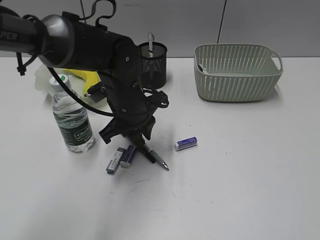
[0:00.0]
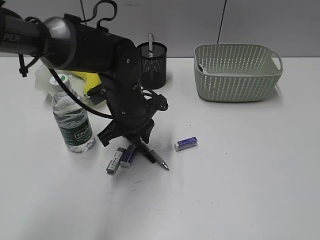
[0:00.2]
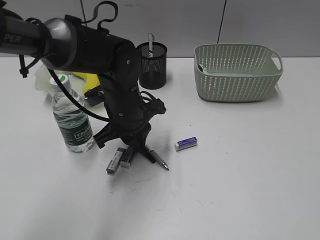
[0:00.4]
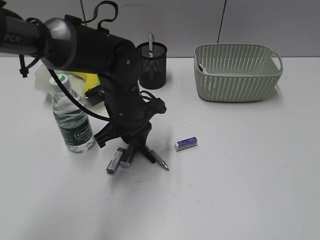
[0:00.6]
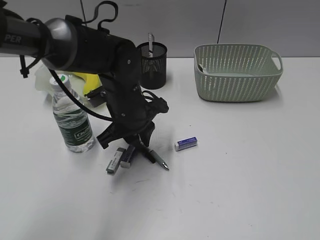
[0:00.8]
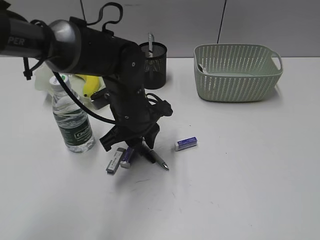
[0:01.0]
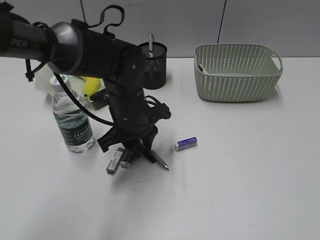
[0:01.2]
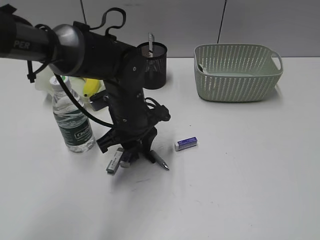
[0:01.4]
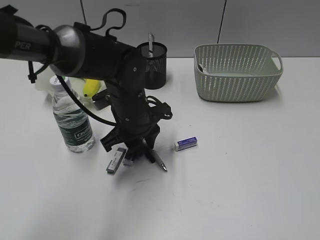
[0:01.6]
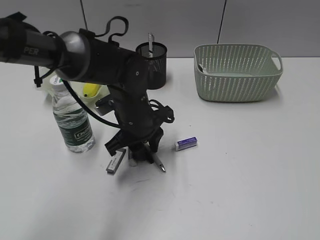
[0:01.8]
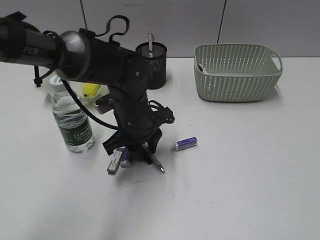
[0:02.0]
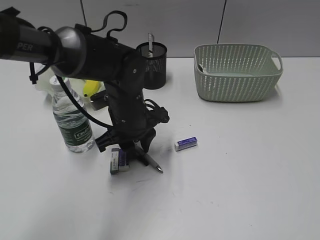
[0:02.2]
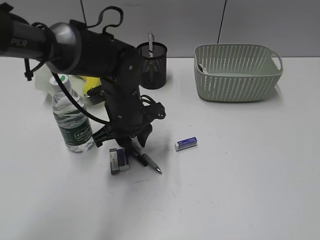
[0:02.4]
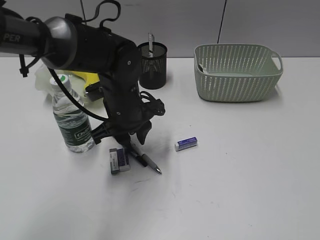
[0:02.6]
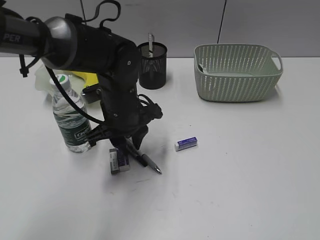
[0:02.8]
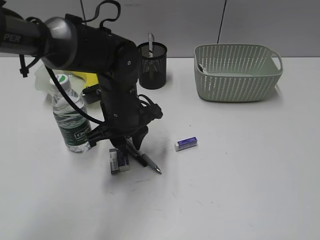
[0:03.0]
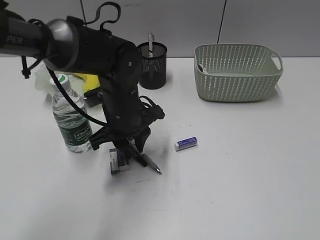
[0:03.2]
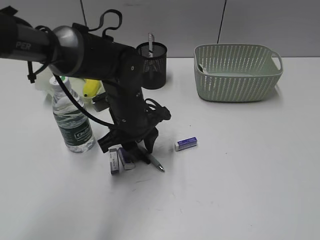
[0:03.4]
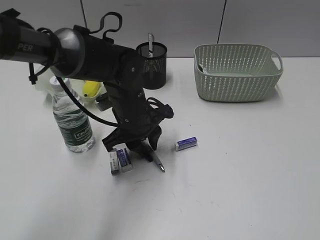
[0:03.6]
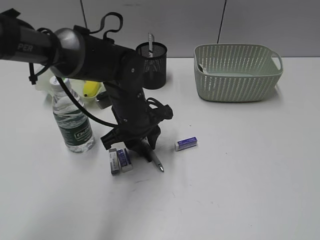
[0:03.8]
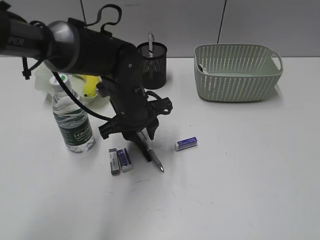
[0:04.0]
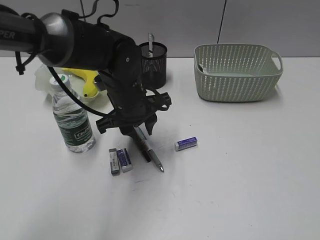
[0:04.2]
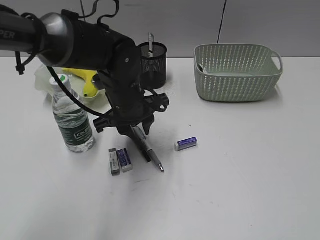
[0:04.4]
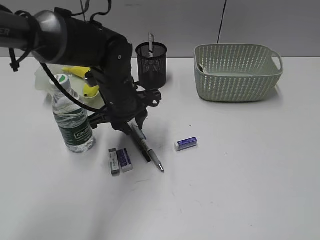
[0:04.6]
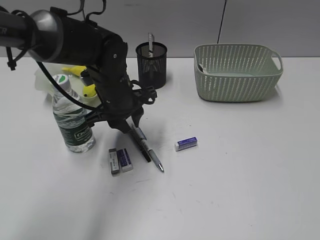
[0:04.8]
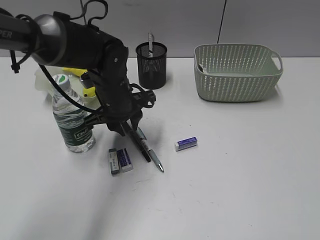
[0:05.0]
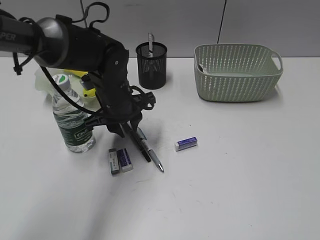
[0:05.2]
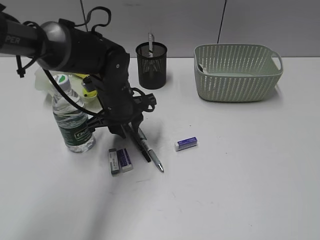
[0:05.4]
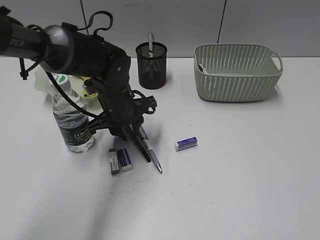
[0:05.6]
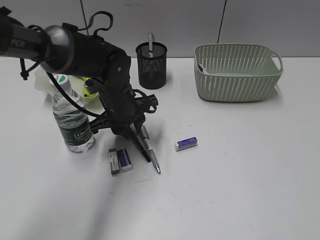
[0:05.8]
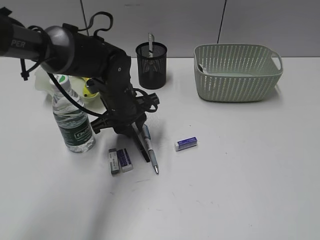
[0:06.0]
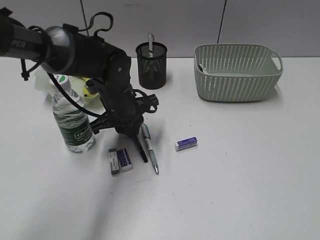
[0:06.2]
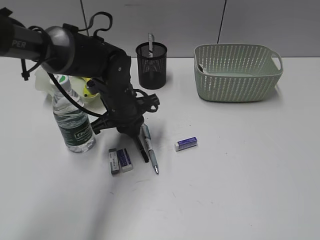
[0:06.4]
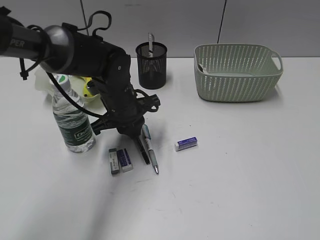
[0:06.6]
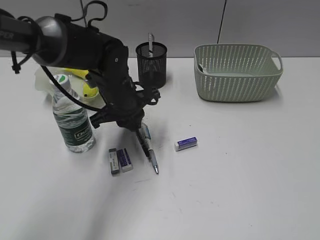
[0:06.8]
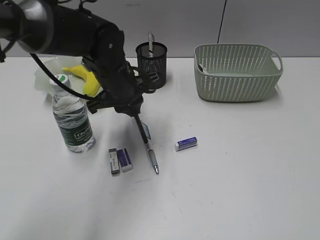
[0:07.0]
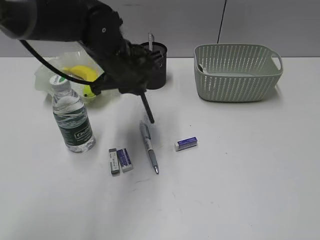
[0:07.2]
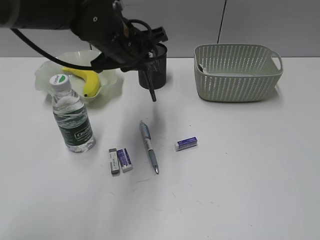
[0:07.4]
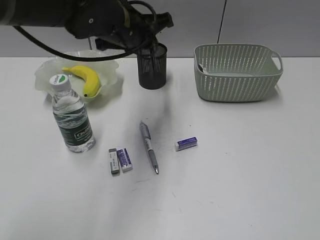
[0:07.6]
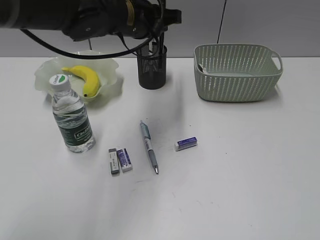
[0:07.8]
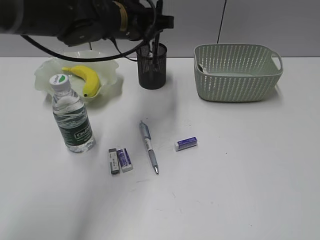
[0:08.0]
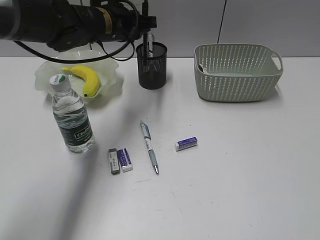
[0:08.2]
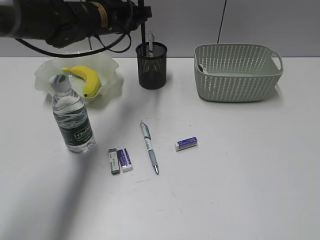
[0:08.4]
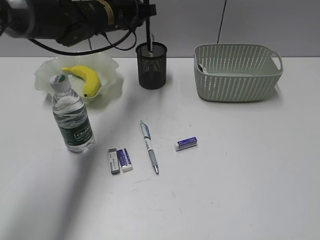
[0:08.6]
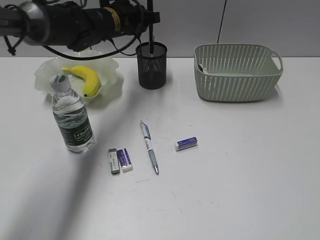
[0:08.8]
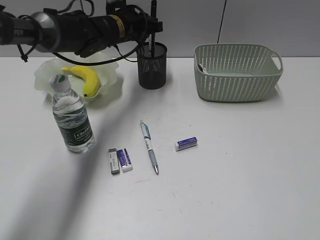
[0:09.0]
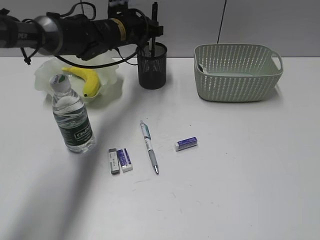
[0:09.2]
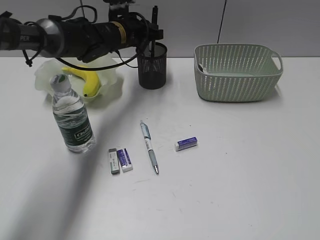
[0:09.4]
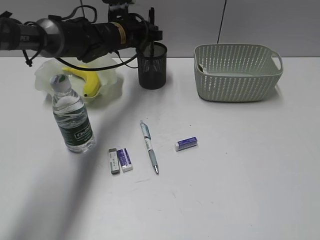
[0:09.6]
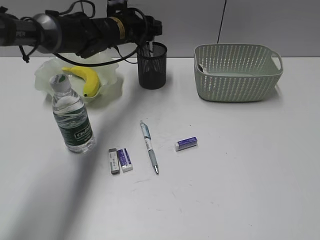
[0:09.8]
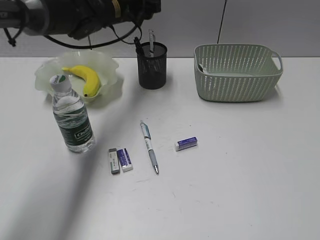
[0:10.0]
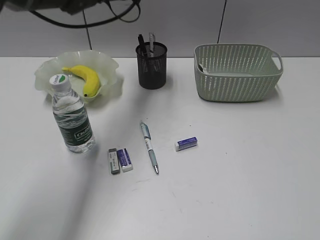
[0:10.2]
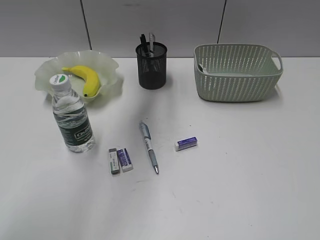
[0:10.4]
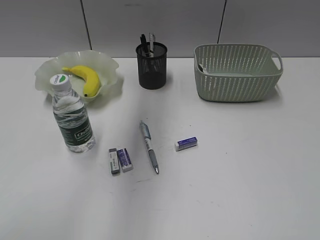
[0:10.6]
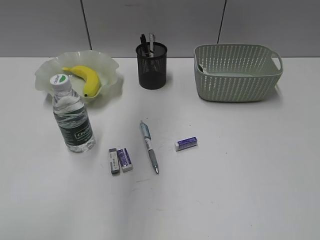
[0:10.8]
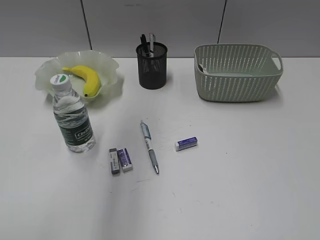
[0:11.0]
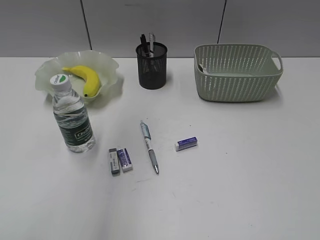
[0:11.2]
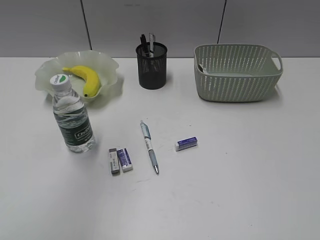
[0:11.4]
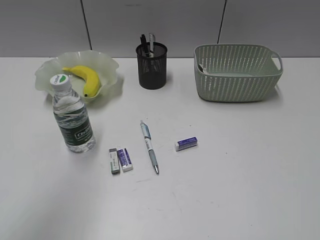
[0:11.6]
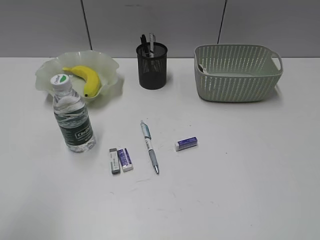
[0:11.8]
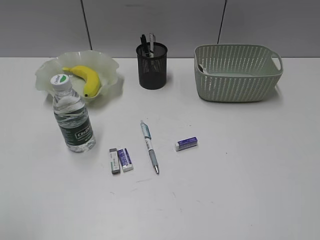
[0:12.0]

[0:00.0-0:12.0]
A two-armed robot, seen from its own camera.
Step, 0:00.0 to 0:06.2: Grasp the black pen with left gripper.
Step, 0:06.4 to 0:09.8: Place the black pen in pen holder with left gripper.
0:00.0 to 0:06.0: The grippers make only small movements.
0:06.0 to 0:07.6: The left gripper shifts roughly 15 cm upward.
0:07.6 to 0:09.0: The left gripper is displaced forward and downward by some 15 cm.
0:09.0 to 0:10.4: The left gripper is displaced upward and backward by about 20 cm, and opens up.
0:10.4 to 0:12.0: The left gripper heads backward and to the left, covering about 40 cm.

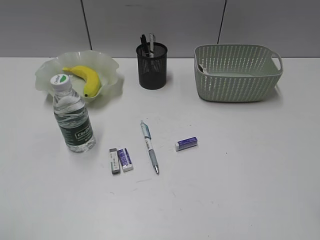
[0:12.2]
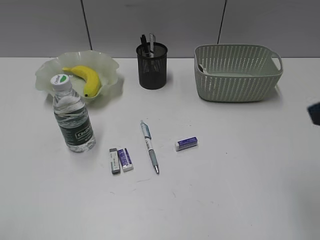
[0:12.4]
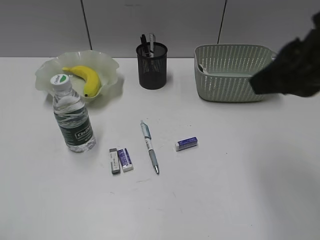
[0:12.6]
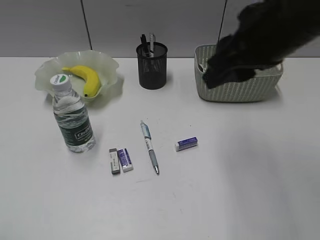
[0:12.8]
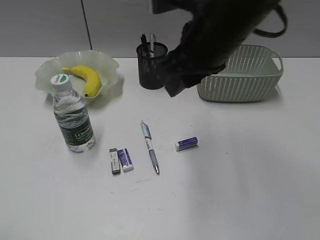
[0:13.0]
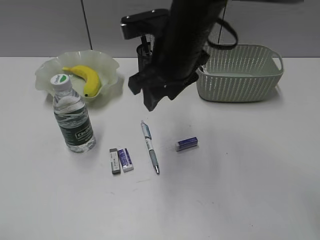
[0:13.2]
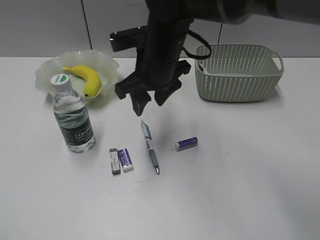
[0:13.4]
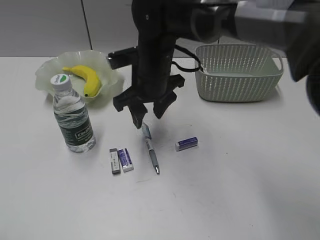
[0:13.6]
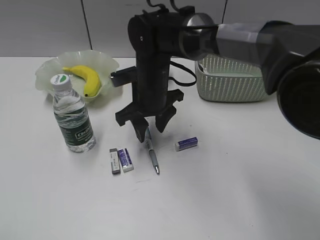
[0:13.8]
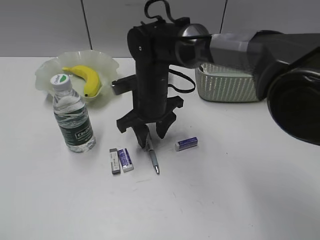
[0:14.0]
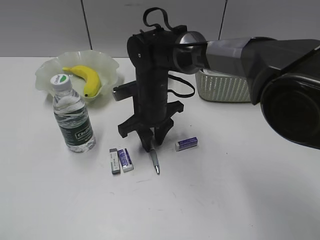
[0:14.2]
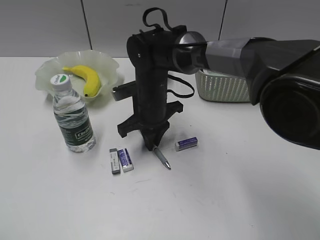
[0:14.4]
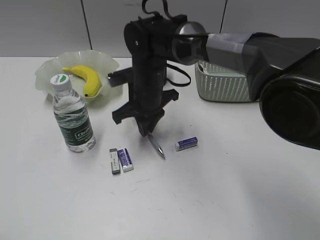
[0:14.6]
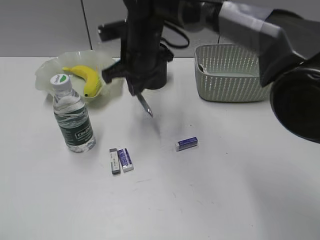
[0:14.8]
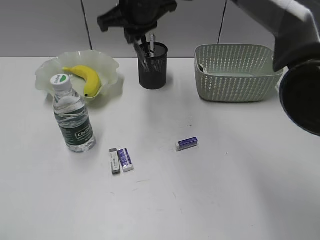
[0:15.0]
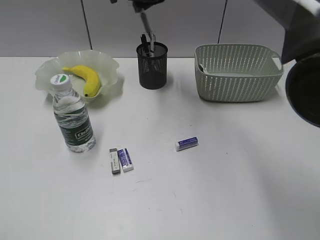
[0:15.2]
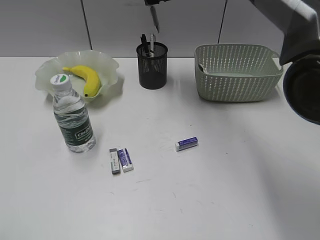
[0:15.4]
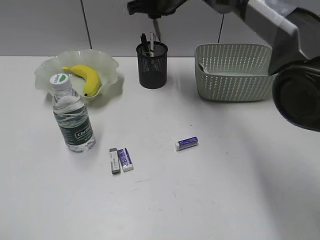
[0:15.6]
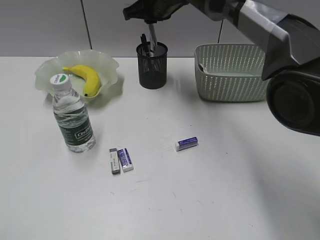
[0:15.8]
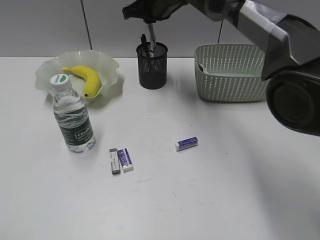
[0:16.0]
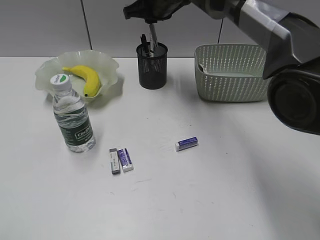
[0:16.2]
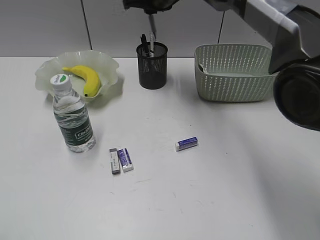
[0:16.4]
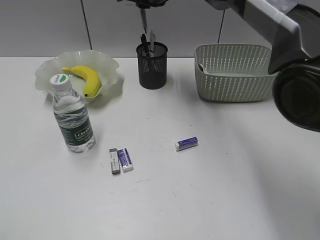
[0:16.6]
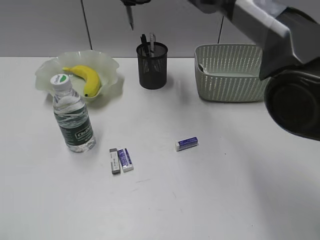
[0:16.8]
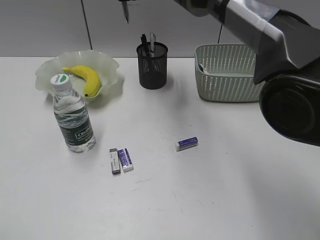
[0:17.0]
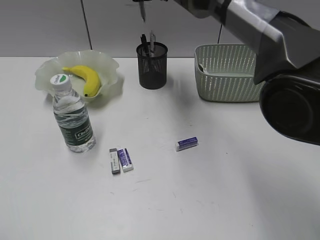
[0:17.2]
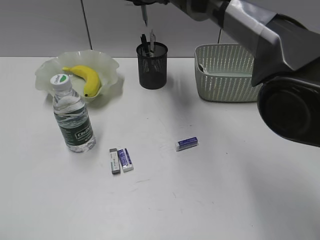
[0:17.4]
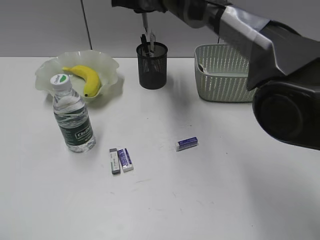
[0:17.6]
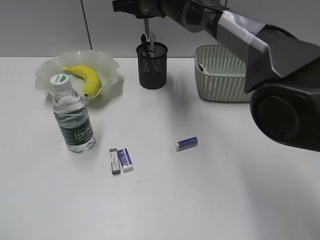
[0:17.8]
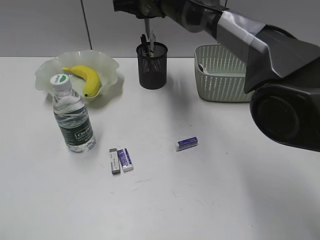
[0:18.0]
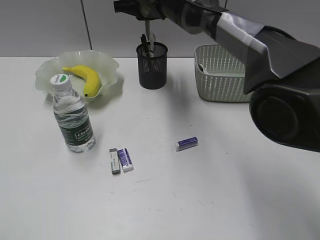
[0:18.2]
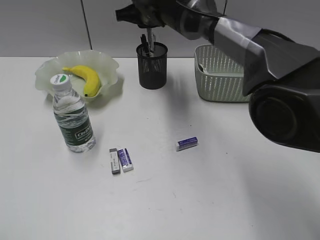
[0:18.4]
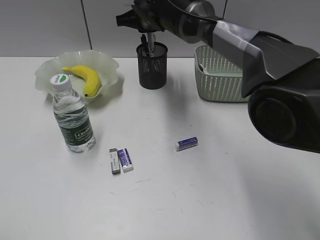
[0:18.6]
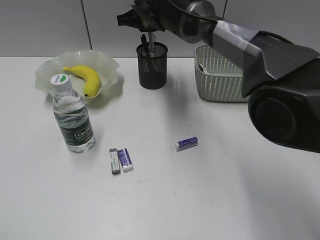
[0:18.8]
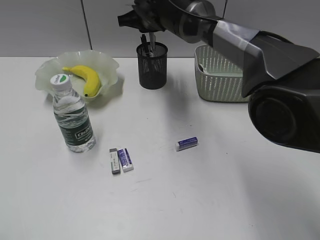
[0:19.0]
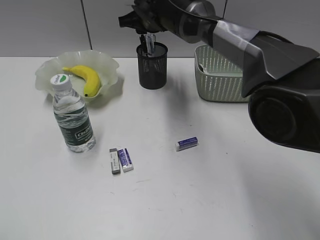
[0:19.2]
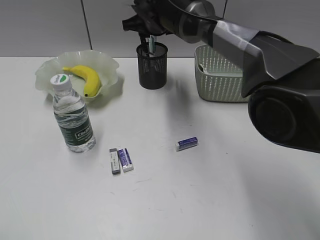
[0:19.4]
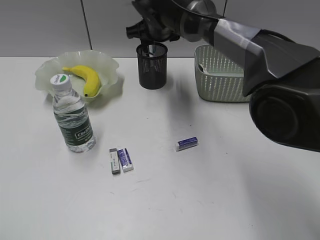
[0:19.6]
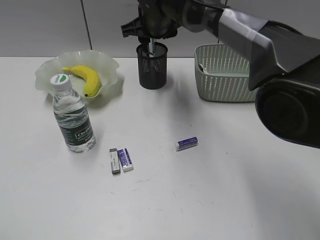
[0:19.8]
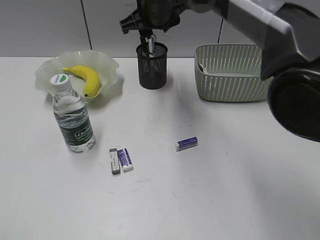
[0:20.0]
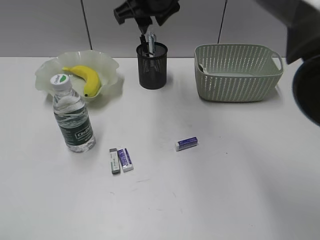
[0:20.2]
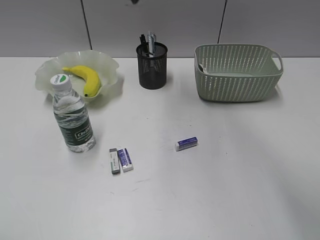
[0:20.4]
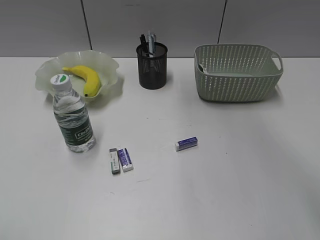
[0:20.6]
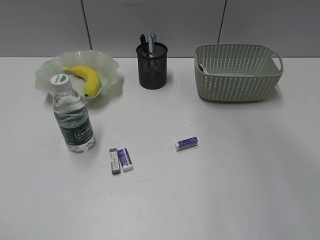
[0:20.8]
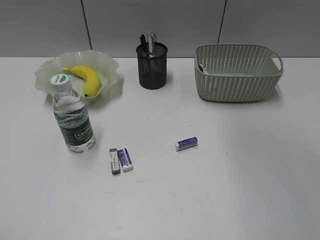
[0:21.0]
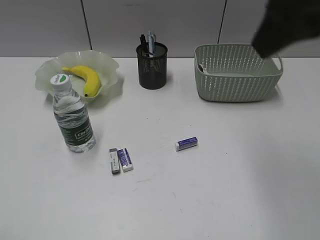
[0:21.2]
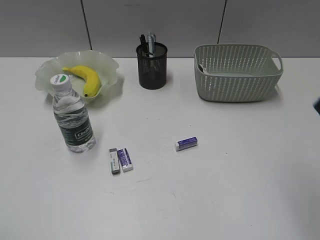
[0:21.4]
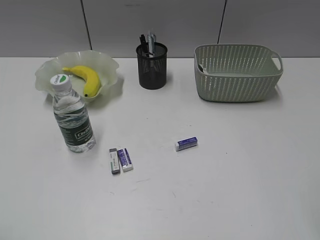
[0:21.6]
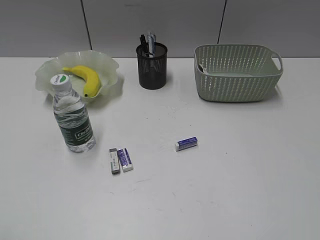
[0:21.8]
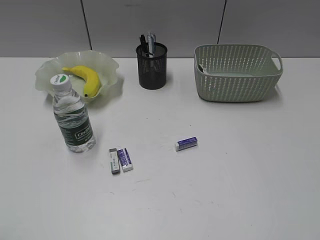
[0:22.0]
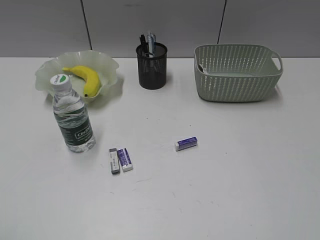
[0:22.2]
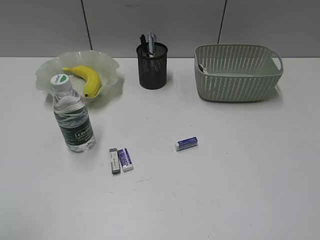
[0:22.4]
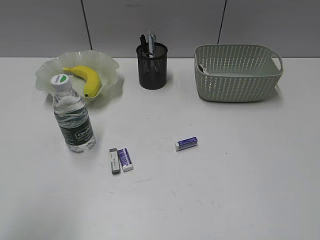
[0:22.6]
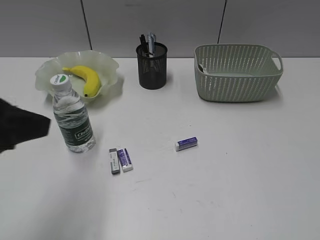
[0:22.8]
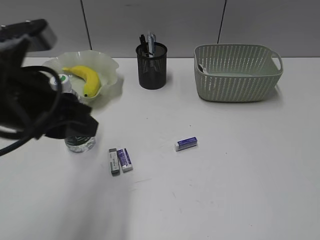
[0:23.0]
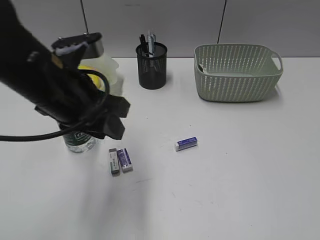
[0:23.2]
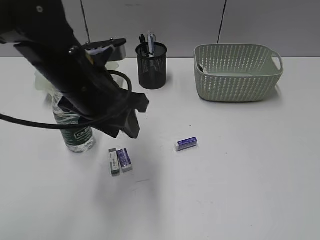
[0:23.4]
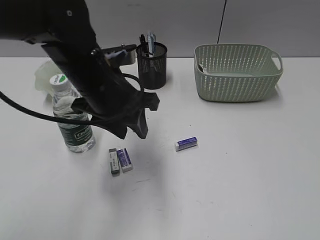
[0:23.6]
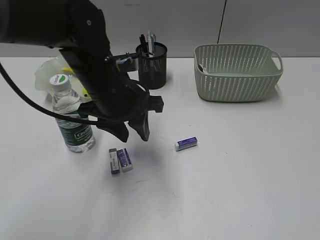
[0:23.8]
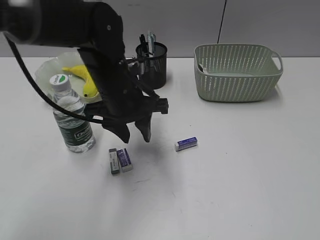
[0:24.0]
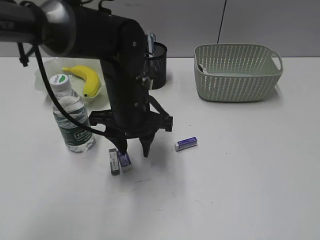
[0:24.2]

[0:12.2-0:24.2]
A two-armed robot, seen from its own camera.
Step, 0:12.2 to 0:14.4: Grasp the blue pen with right gripper.
Step, 0:14.6 to 0:19.2: Place the blue pen in pen holder with right gripper.
0:12.2 to 0:13.8: The right gripper is displaced forward, to the left and downward by approximately 40 cm, and opens up.
0:13.8 to 0:15.2: The right gripper moves upward and forward, some 20 cm, and closes up.
0:15.2 to 0:16.6: The right gripper moves approximately 5 cm.
0:16.6 to 0:18.2: The grippers stay close to where they were, moving slightly.
0:18.2 to 0:19.8: The right gripper opens.
0:19.8 to 0:21.2: The right gripper shifts about 35 cm backward, upward and to the right.
0:21.2 to 0:22.6: The right gripper goes approximately 30 cm backward, to the right and downward. Meanwhile the left gripper moves forward and to the right, roughly 10 cm.
0:22.6 to 0:24.2: The left gripper travels forward, to the right and downward by some 35 cm.
